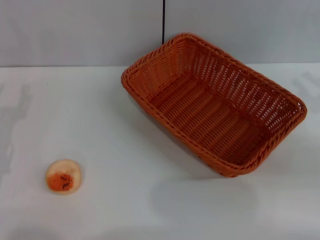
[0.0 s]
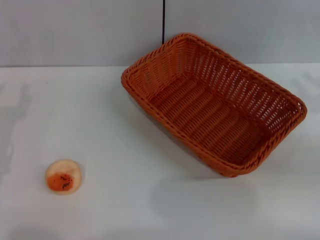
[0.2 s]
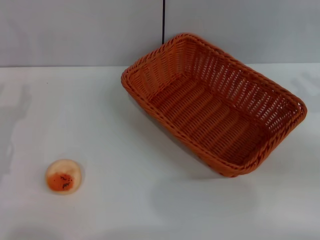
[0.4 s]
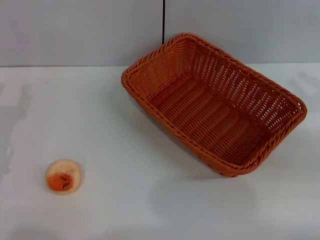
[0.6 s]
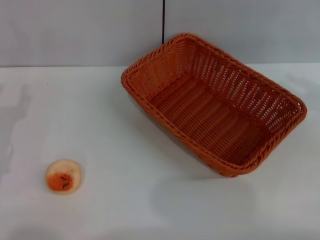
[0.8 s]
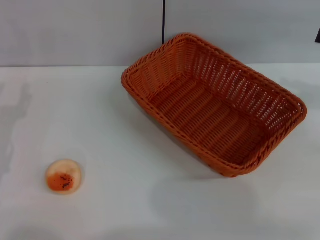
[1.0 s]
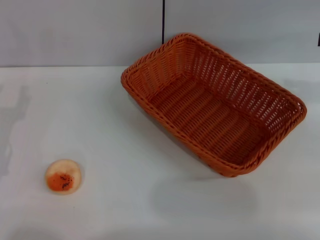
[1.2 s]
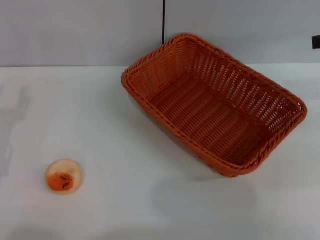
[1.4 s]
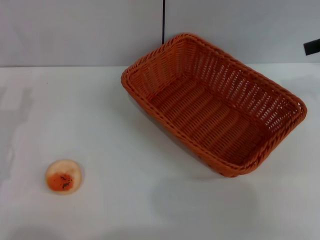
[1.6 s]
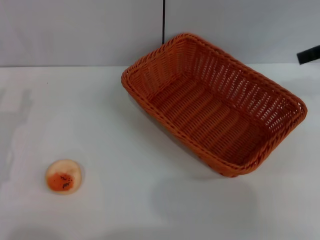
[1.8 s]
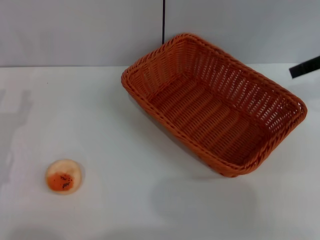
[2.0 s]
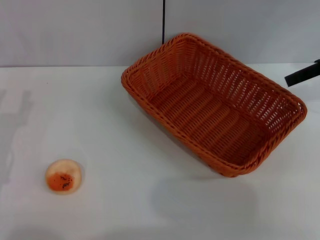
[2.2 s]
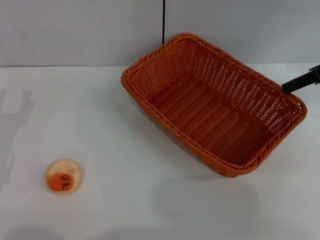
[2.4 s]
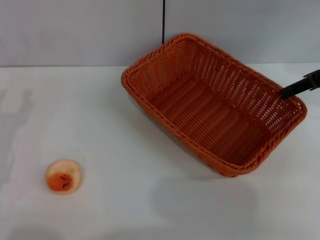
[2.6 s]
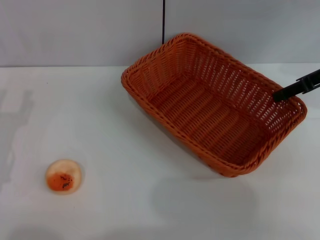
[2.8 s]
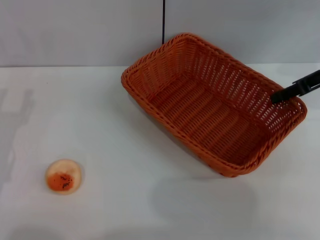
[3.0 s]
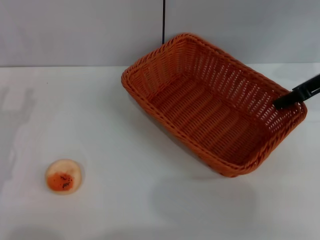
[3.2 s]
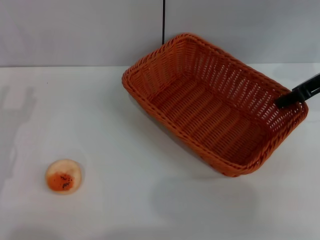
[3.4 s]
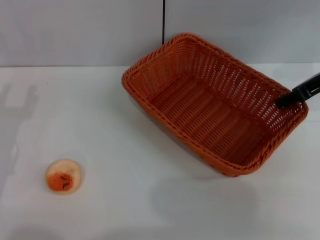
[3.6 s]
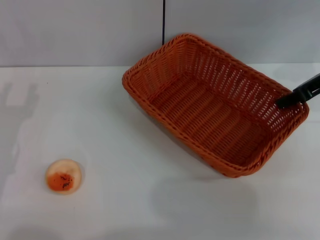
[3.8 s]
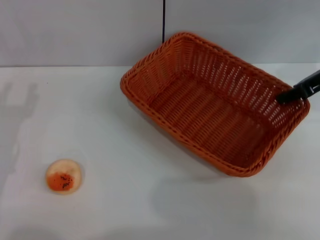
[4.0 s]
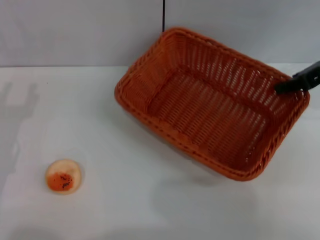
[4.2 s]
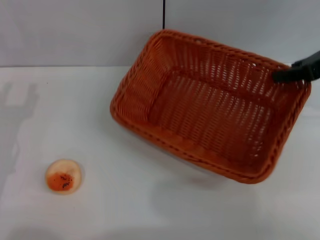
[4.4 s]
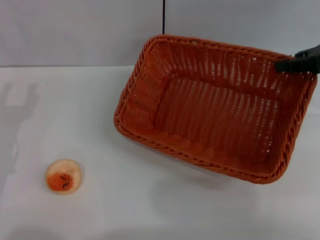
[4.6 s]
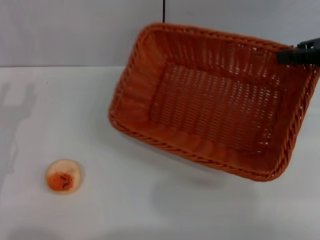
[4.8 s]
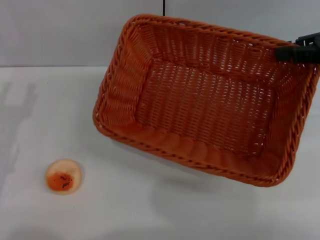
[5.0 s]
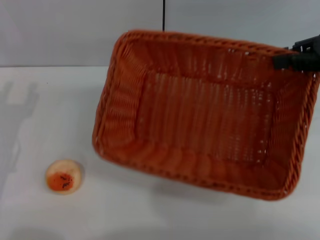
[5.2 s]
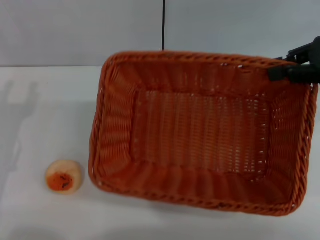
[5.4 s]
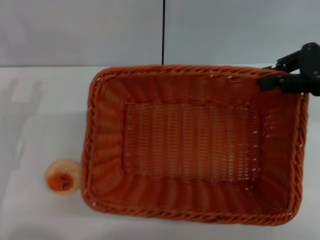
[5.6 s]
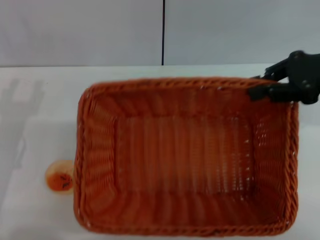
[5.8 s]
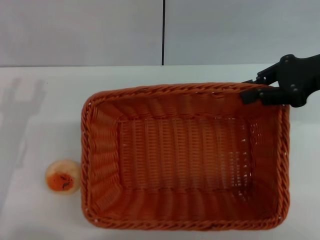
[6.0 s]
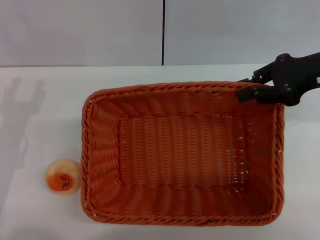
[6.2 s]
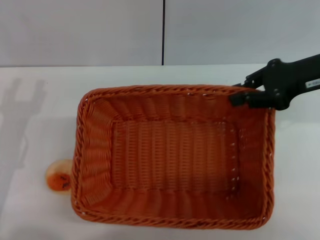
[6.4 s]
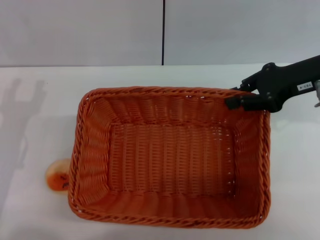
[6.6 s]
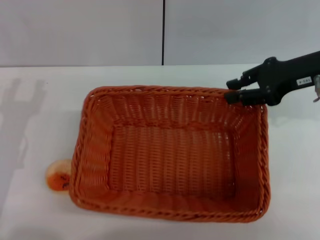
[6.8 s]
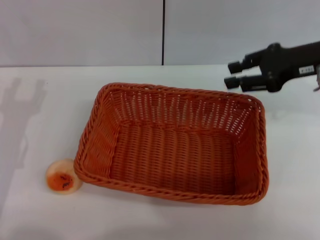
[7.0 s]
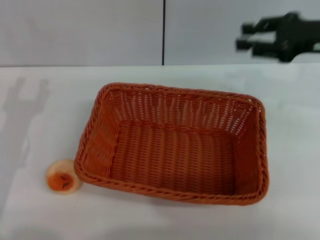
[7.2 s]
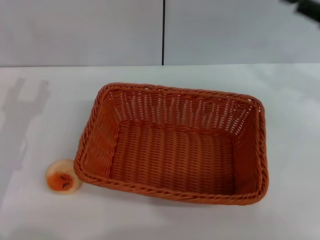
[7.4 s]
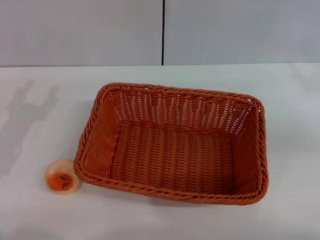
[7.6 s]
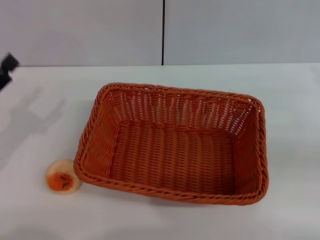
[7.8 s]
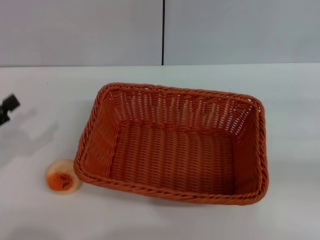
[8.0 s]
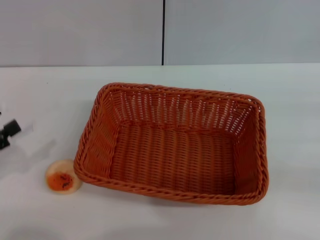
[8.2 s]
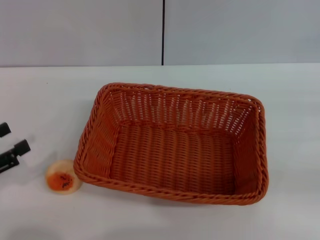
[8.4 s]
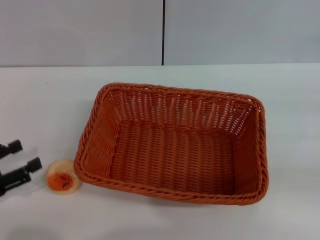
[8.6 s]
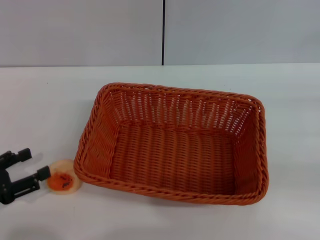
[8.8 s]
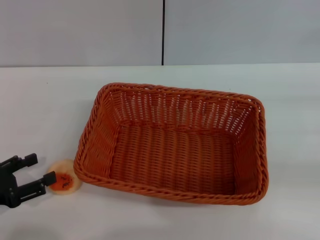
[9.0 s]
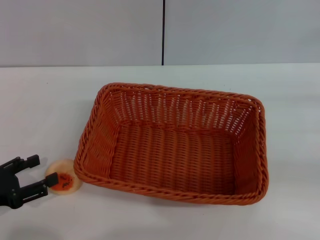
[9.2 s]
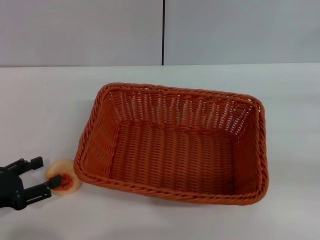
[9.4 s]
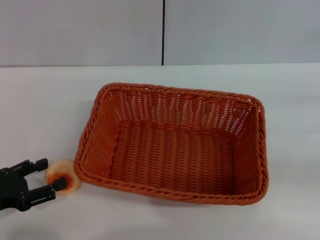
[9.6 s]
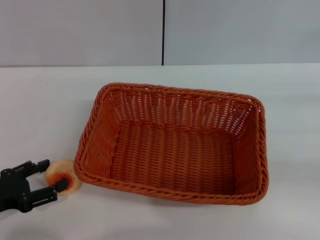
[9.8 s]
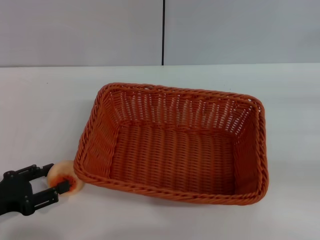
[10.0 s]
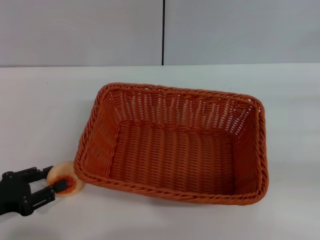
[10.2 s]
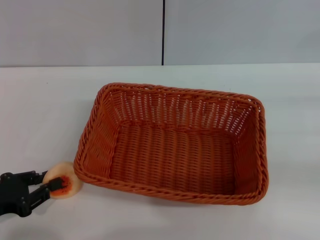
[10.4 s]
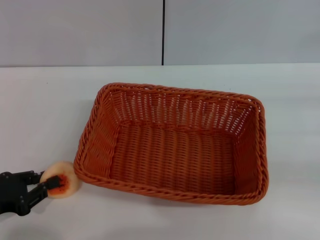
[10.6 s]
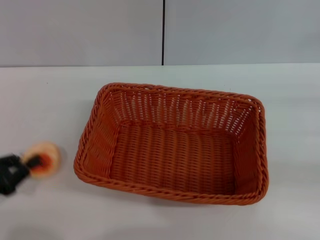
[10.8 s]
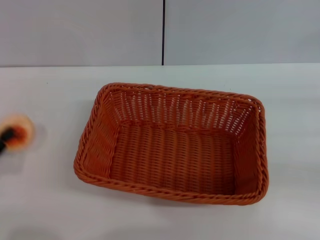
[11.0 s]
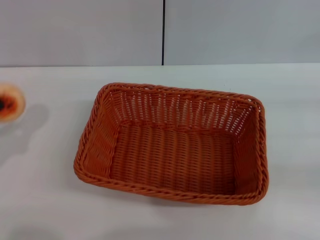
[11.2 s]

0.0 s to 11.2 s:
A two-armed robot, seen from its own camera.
Step, 0.0 to 7.0 s: Move the basket to the center of view with the right gripper.
Step, 7.2 to 11.2 s: Pick up the egg yolk pastry with the left gripper.
0.0 to 1.6 s: The right gripper heads upward and forward, covering roughly 20 cm.
1.6 to 3.2 s: The right gripper travels downward and to the left by roughly 10 cm.
3.2 to 4.8 s: The right gripper moves about 5 cm.
4.8 to 6.4 s: The right gripper heads to the left, covering approximately 5 cm.
6.4 to 8.0 s: The right gripper is displaced to the right and backward by approximately 20 cm, and opens. Meanwhile the left gripper travels to the left by roughly 10 cm.
8.0 to 9.6 s: The left gripper shifts by roughly 5 cm.
9.6 to 11.2 s: The left gripper closes up.

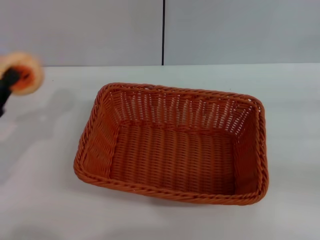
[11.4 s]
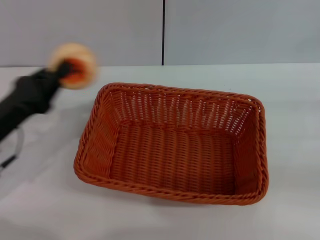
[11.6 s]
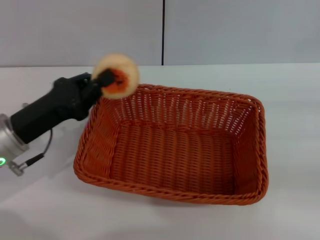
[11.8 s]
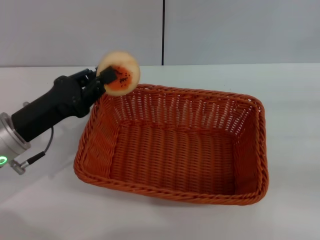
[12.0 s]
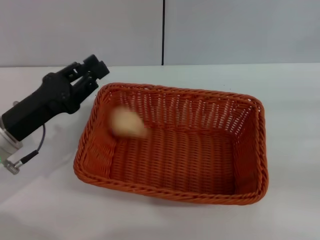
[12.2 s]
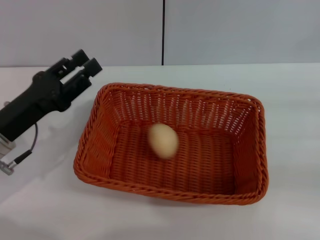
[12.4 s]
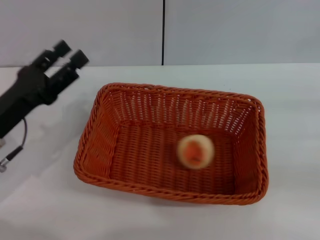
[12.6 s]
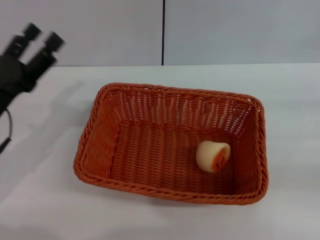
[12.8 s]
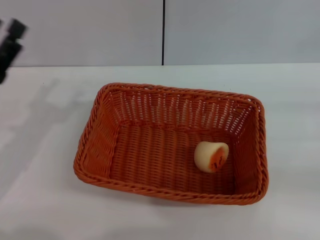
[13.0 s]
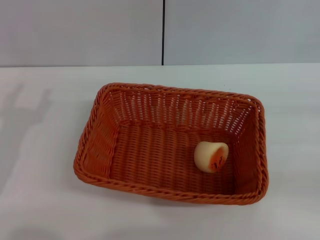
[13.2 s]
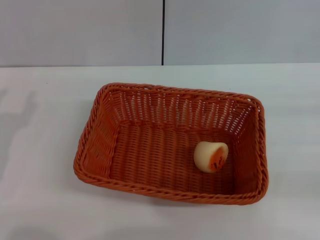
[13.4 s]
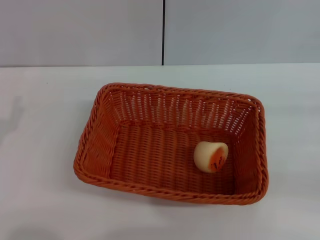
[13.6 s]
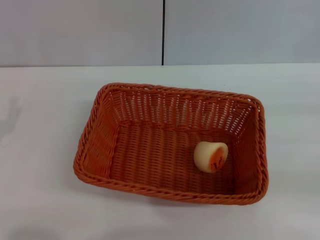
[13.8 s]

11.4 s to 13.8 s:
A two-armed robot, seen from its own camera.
Step, 11.4 to 12.6 s: Place the egg yolk pastry into the basket with the left gripper.
11.4 to 12.6 s: The left gripper shifts some 5 cm to the right, and opens its fingers.
12.6 to 13.8 s: The left gripper moves backward and to the left, approximately 10 cm, and opens.
